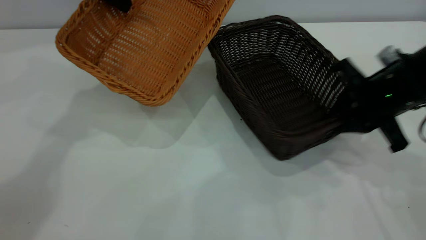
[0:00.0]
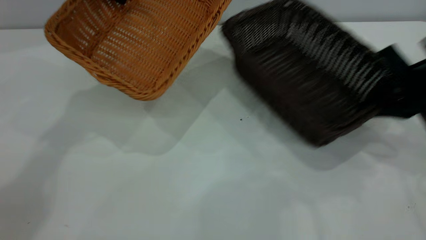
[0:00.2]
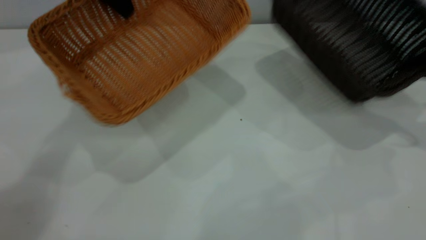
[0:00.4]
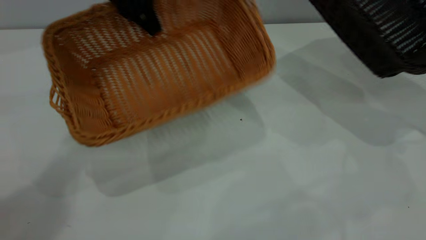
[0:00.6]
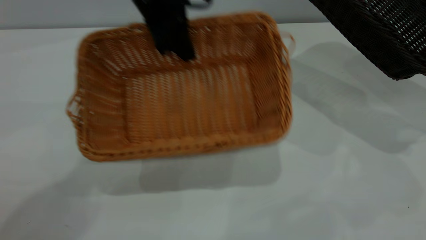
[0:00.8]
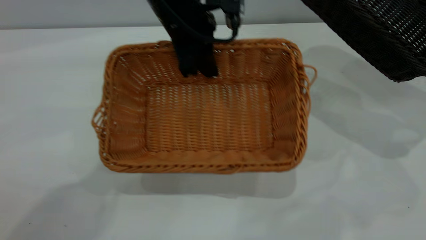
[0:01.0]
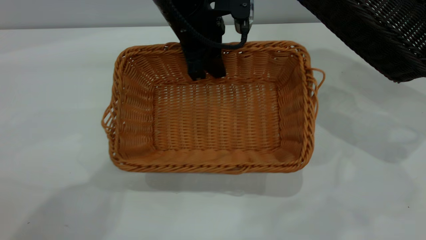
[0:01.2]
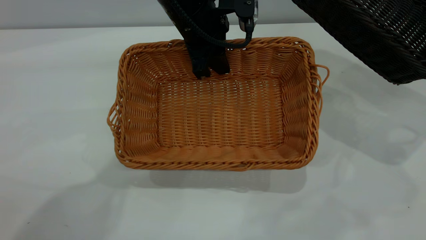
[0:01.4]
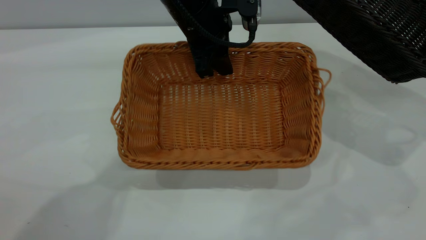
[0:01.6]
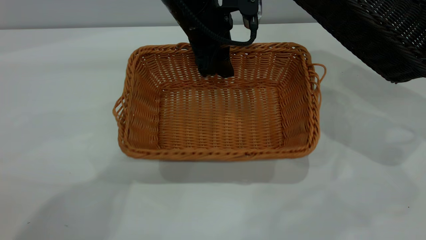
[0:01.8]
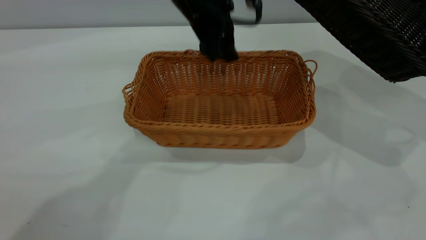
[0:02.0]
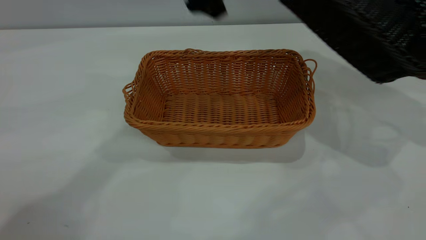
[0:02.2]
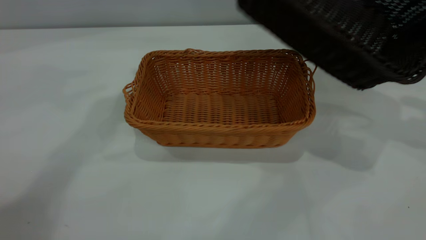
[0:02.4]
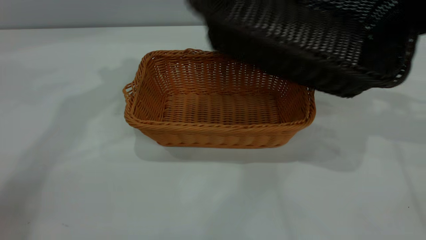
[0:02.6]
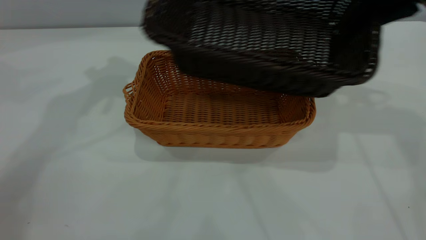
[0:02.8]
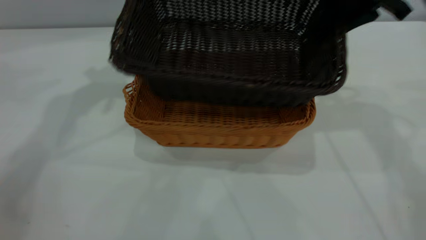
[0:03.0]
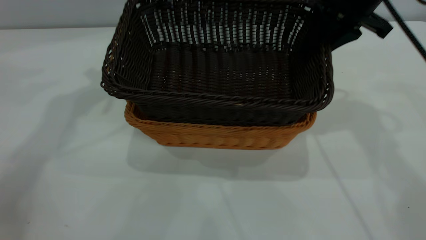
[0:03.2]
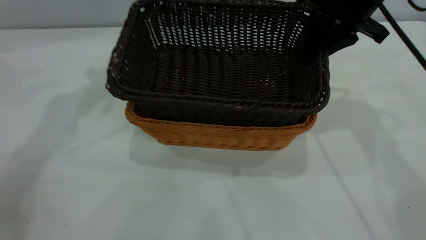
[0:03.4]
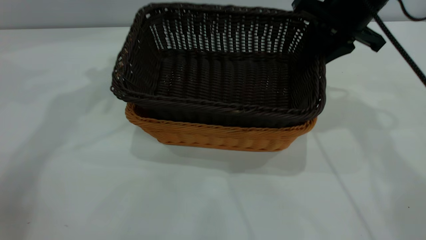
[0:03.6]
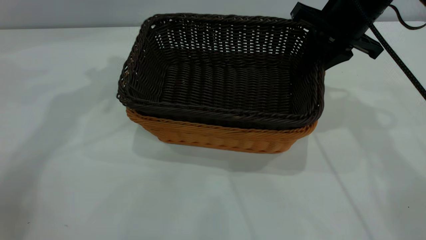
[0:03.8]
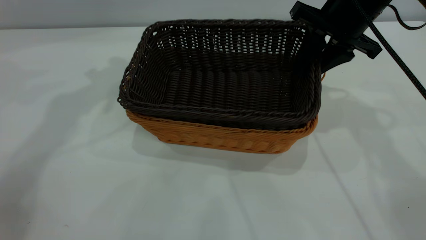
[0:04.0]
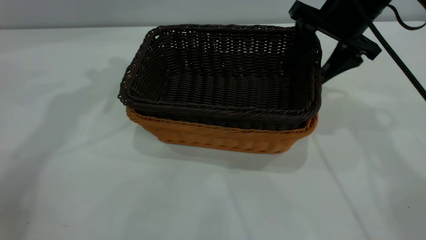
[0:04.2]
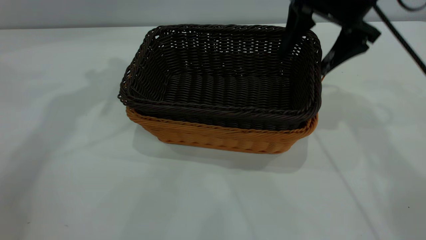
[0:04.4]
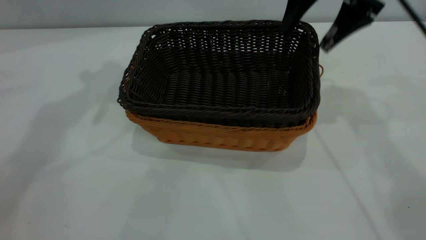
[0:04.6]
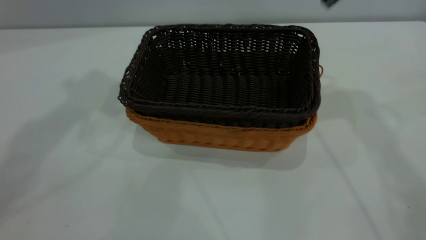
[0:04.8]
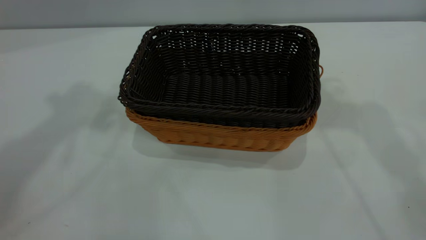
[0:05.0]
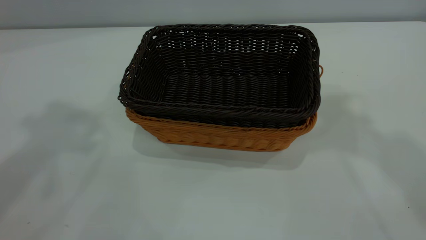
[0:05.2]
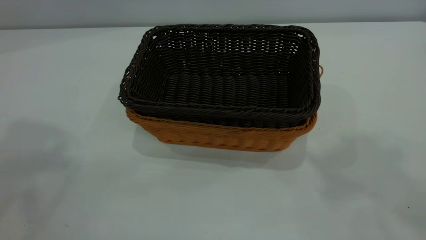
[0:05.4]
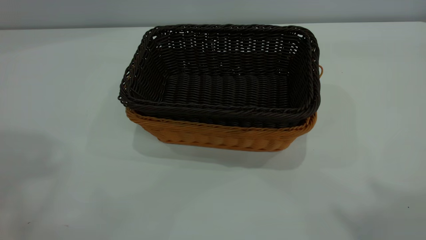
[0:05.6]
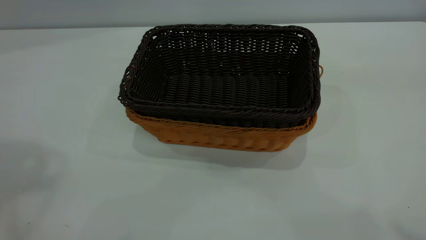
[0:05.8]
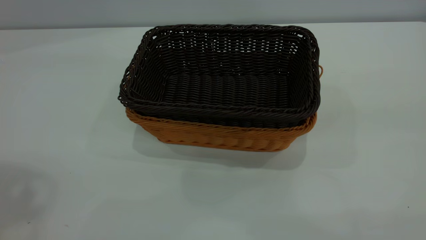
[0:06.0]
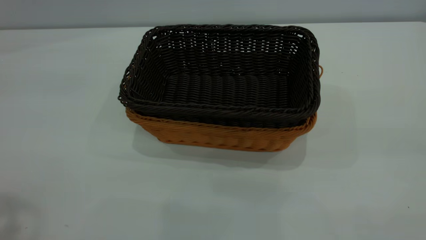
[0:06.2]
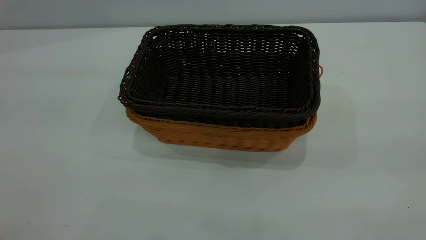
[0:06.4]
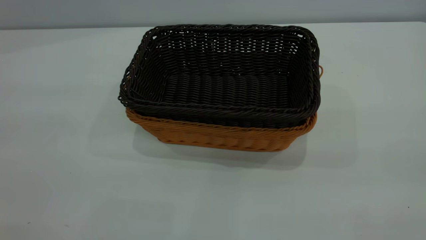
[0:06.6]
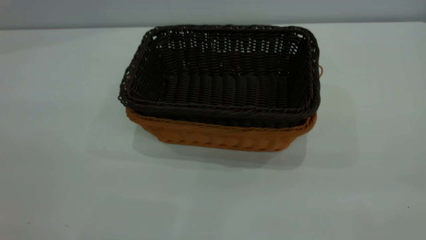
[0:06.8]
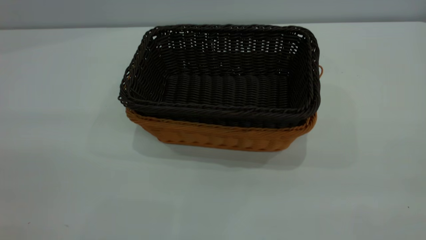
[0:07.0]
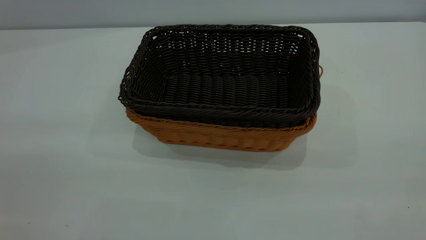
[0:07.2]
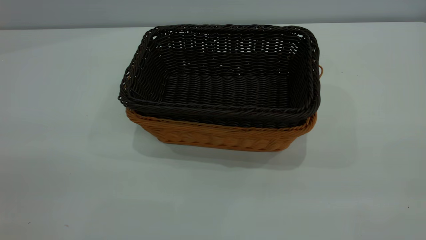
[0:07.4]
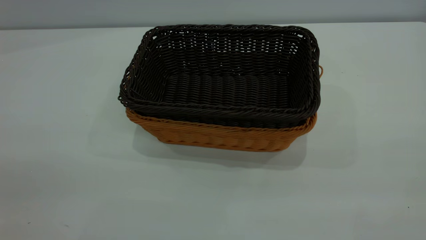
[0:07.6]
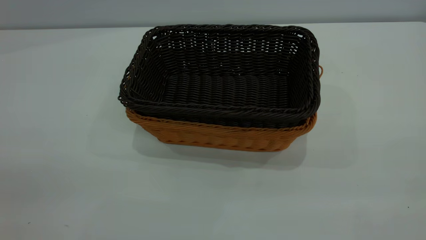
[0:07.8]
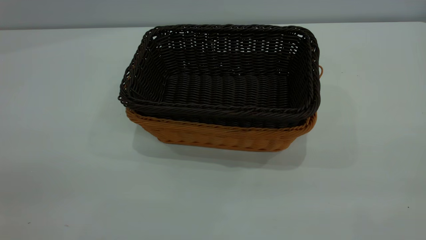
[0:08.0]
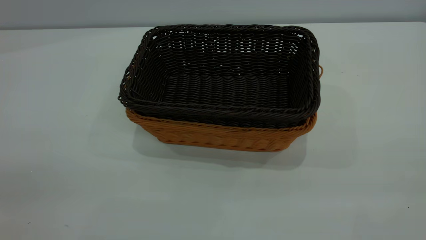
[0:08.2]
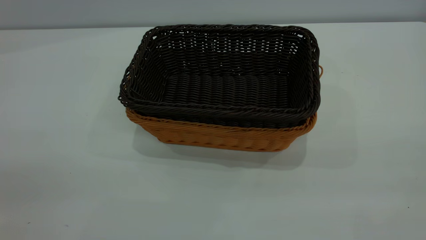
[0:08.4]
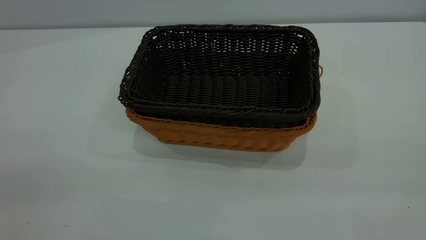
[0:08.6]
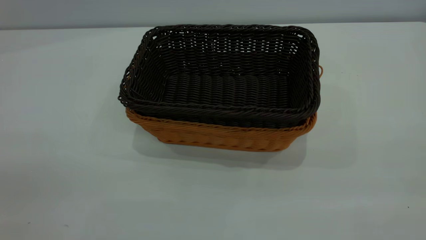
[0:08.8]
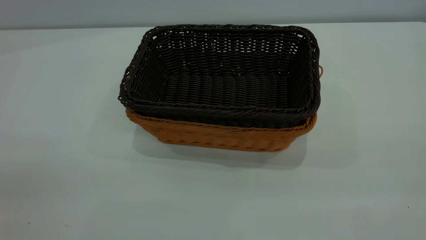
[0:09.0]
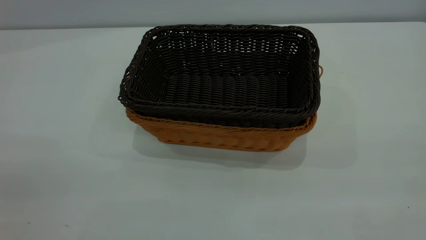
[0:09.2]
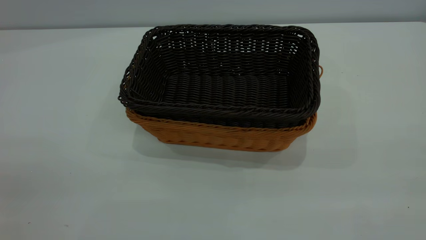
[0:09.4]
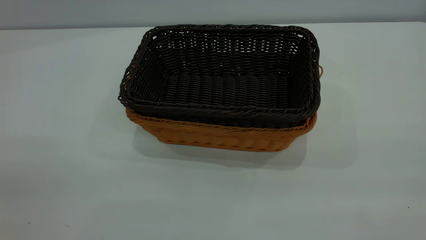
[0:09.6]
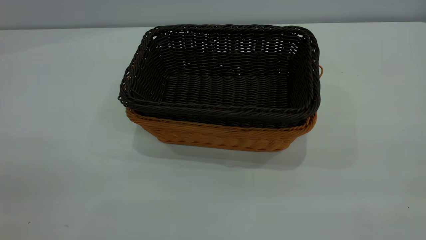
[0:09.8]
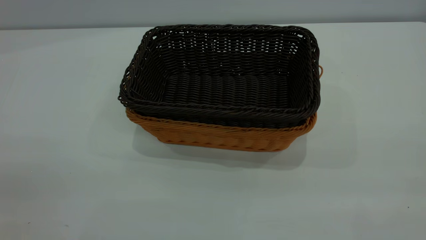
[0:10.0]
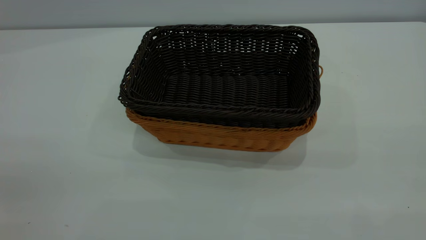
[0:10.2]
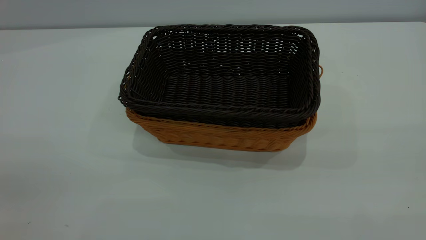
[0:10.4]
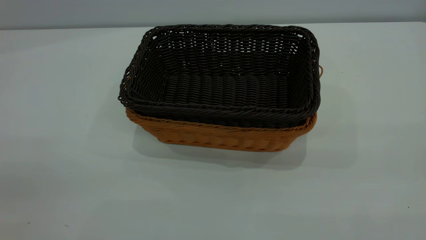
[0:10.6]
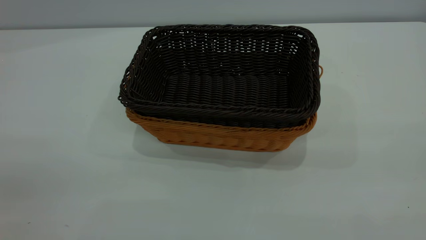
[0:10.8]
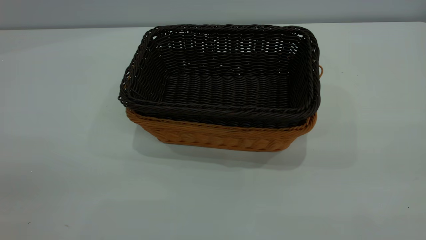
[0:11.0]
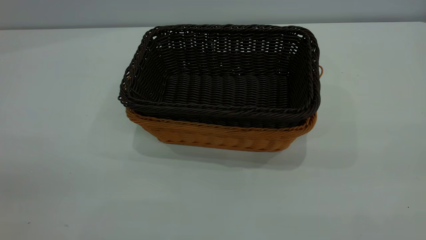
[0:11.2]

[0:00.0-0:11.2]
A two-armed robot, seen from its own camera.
Task of the whole recording: the left gripper grasp the brown basket and place it in the center of the table, the right gripper grasp the black basket and place it inside the brown one.
Step, 0:00.4 to 0:02.0: Place the light-colored basket in the center.
Step, 0:02.2 to 0:04.6: Place the dark basket on top of the light basket.
0:00.0 to 0:01.6: The right gripper is displaced to the right and upward by roughly 20 cm; the left gripper travels to the right and backward by approximately 20 cm, and opens up.
0:01.6 to 0:03.2: The left gripper travels to the left and upward by about 25 cm, and opens up; the right gripper goes some 25 cm to the left.
0:03.2 to 0:04.8: The right gripper heads upward, covering some 10 cm, and opens. The left gripper travels upward and backward by approximately 15 cm.
